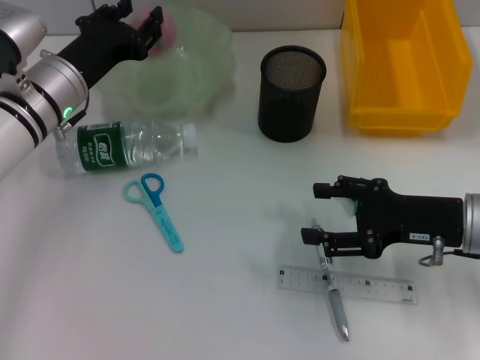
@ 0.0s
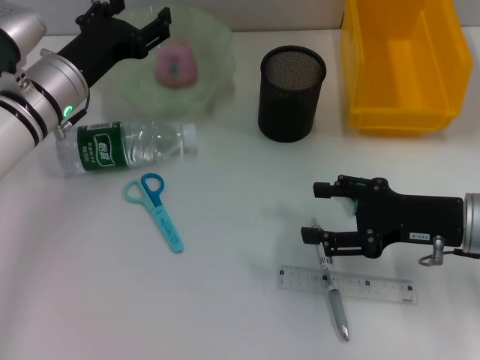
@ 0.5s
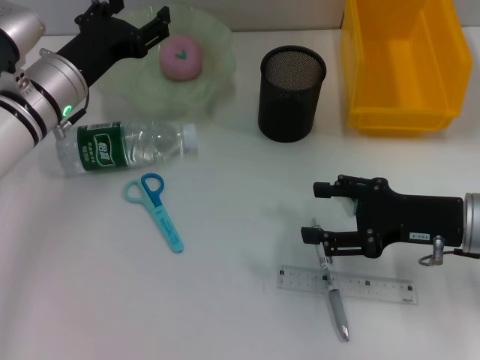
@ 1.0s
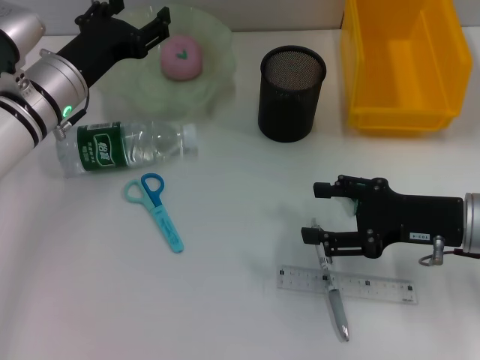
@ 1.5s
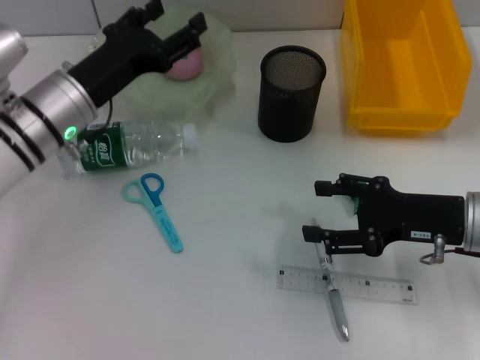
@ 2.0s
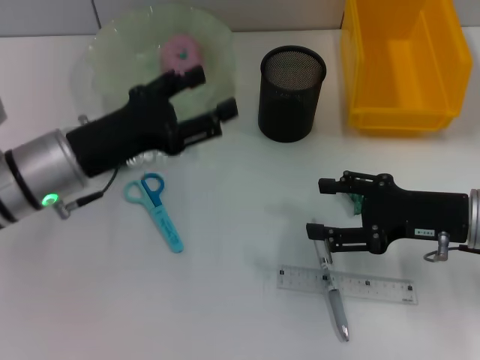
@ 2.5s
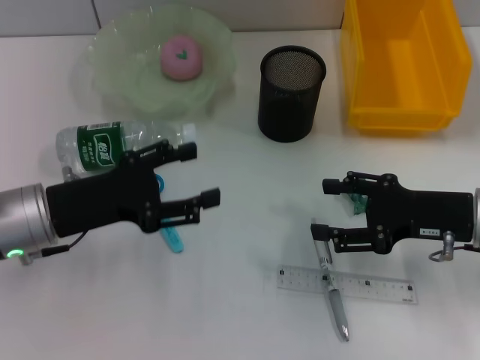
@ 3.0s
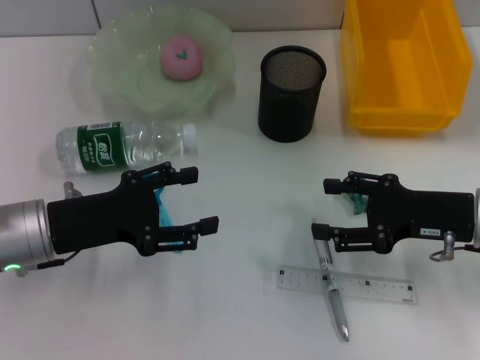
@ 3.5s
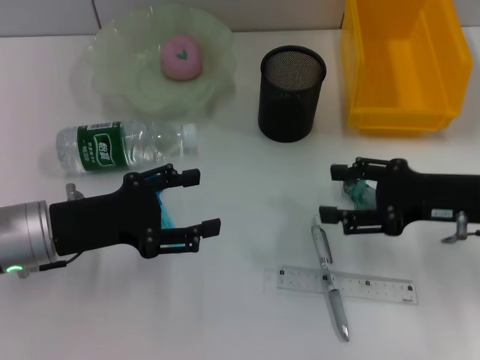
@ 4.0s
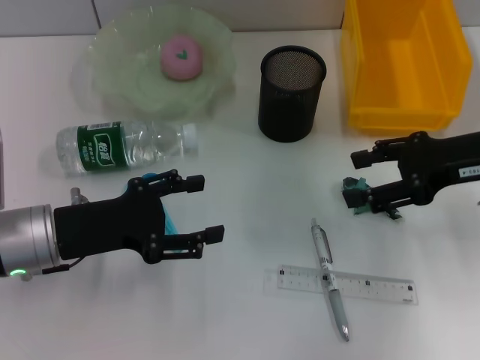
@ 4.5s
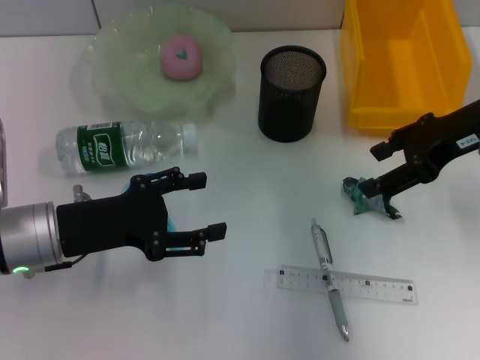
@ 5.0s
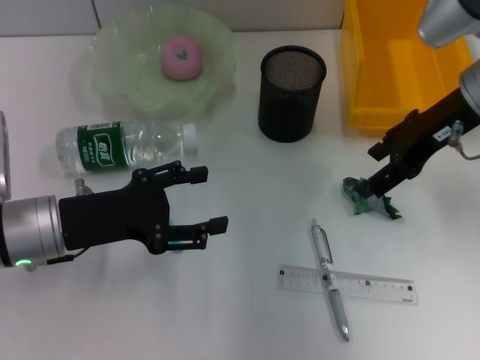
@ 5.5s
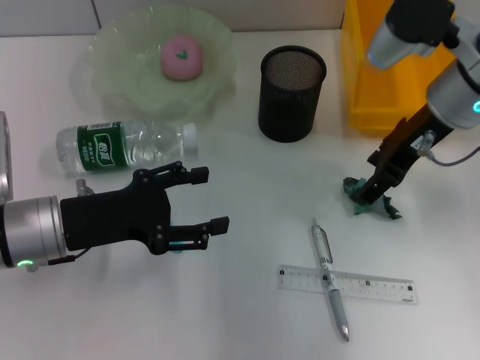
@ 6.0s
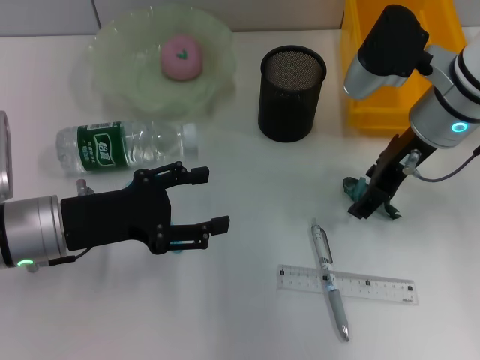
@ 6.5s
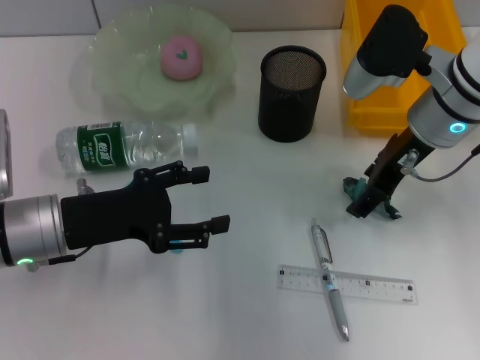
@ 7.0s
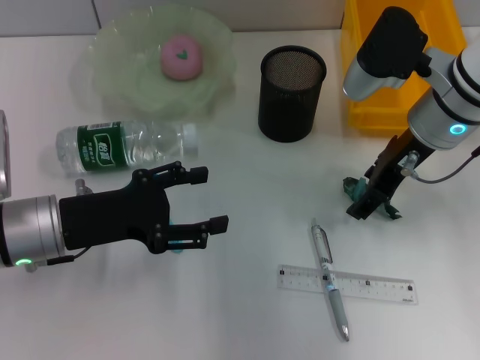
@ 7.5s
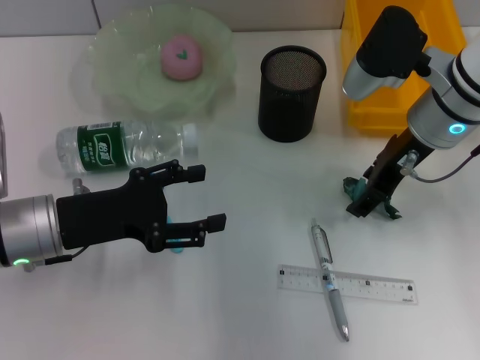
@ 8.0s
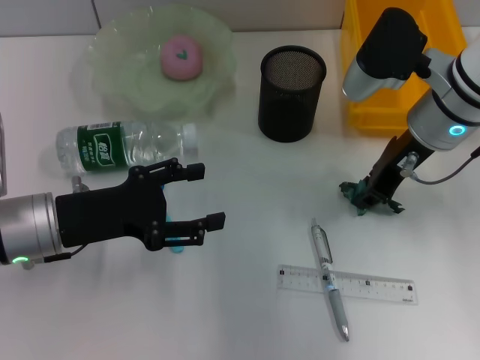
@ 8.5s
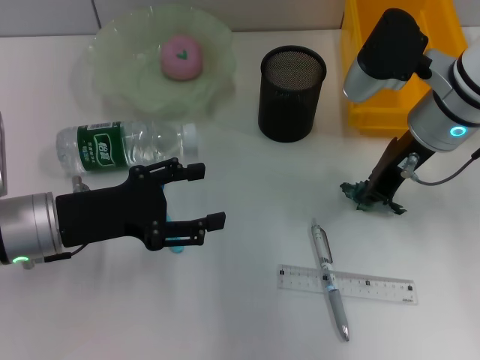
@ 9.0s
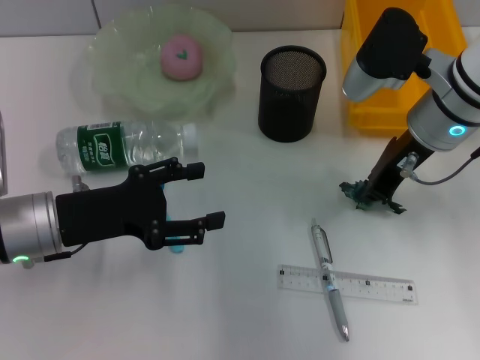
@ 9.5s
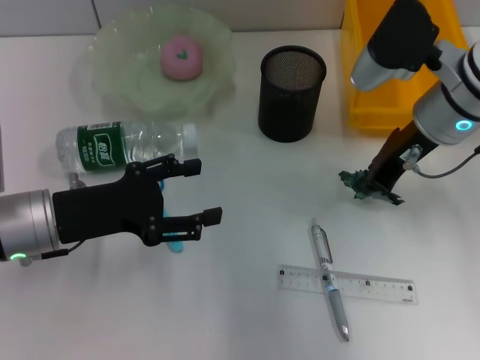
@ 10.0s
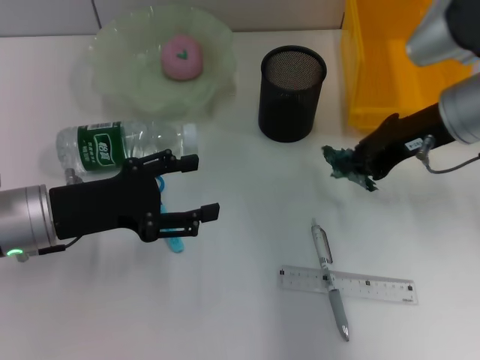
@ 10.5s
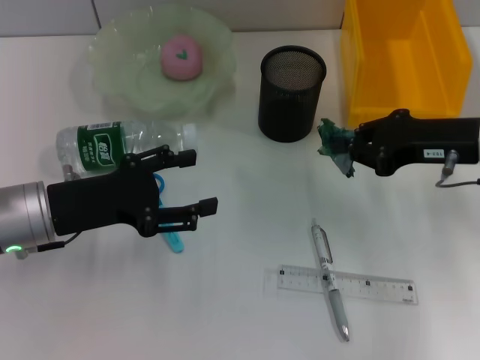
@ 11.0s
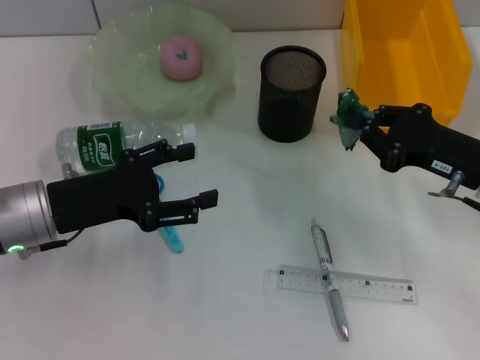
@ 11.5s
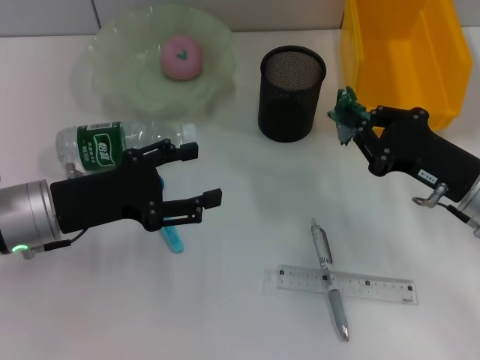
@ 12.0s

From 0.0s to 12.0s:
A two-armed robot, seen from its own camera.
Step, from 1.0s to 9.0s: Grab the plastic with the right hand.
From 0.0s to 2.0s: The left gripper opens.
From 2.0s to 4.0s: The left gripper goes about 10 cm backward.
From 4.0s to 6.0s: The right gripper shifts some 15 cm forward, upward and to the left.
From 6.0s to 8.0s: The grippers stay close to where they were, moving slightly.
From 8.0s to 10.0s: The right gripper closes.
From 10.0s to 12.0s: The right gripper is displaced downward, backward and to the right by roughly 15 cm.

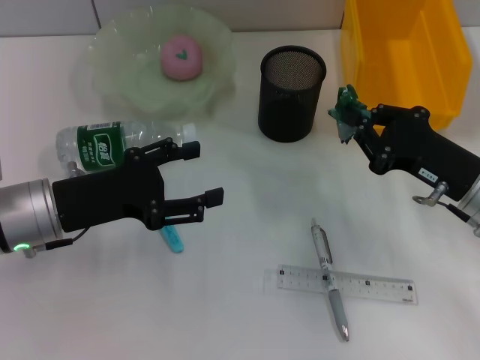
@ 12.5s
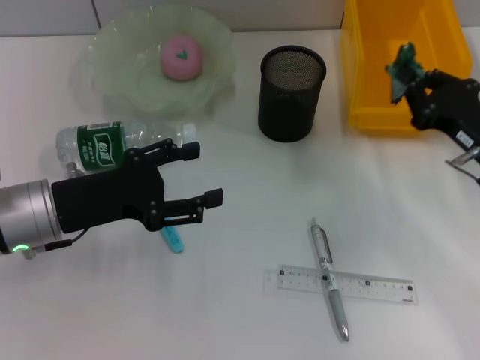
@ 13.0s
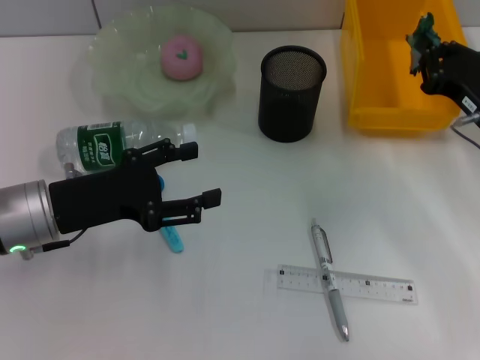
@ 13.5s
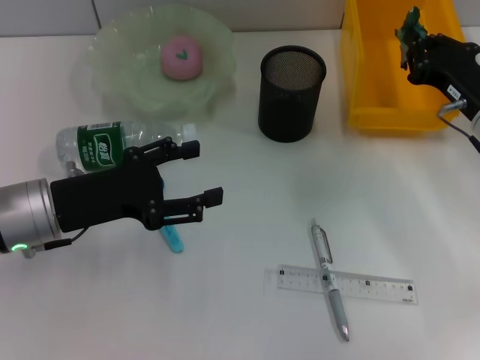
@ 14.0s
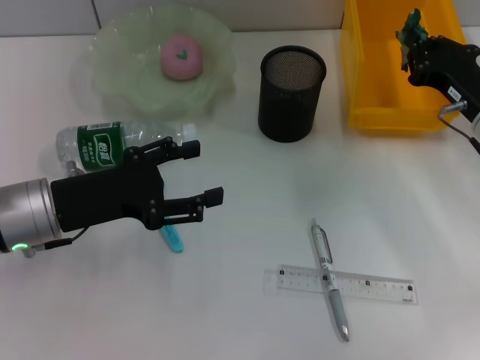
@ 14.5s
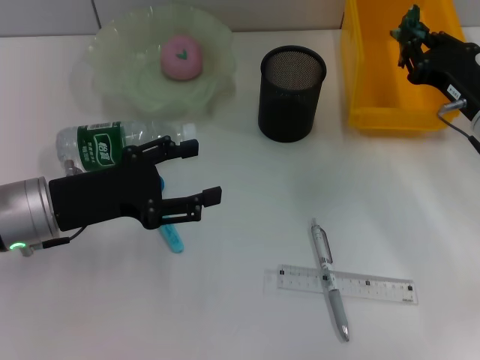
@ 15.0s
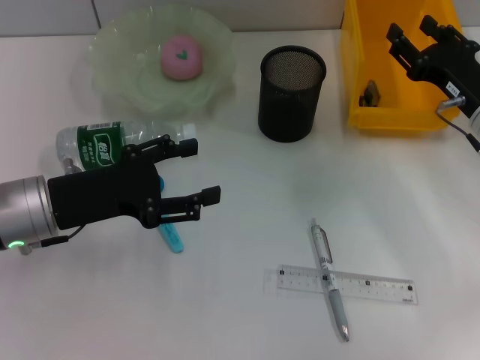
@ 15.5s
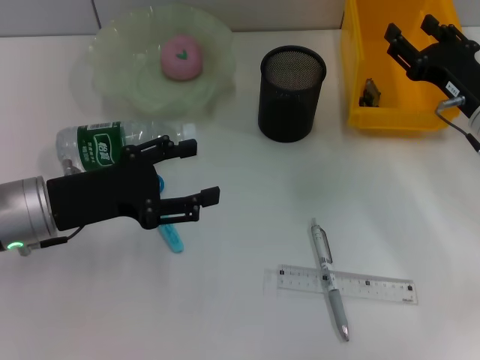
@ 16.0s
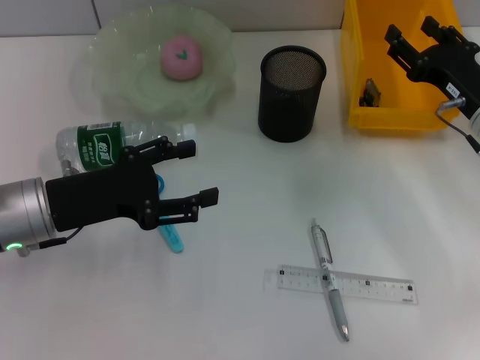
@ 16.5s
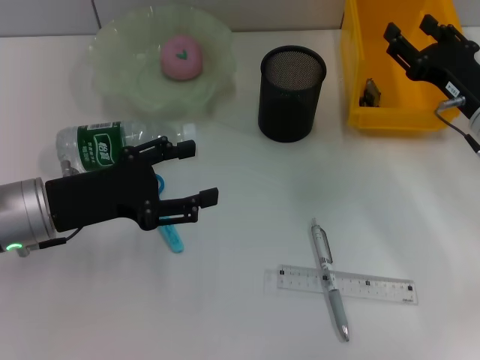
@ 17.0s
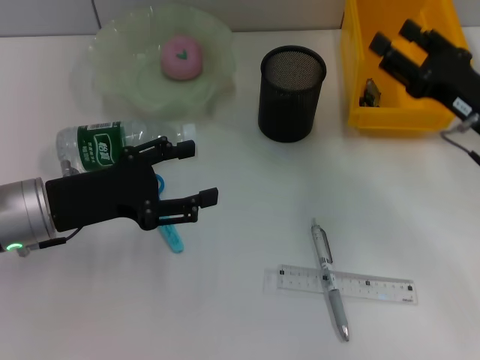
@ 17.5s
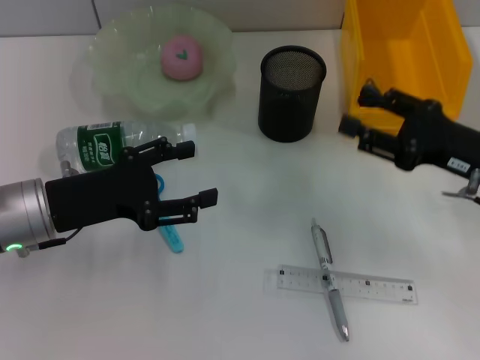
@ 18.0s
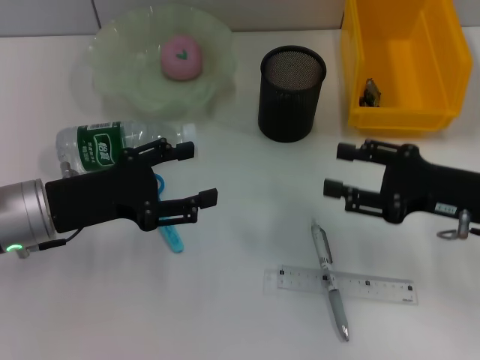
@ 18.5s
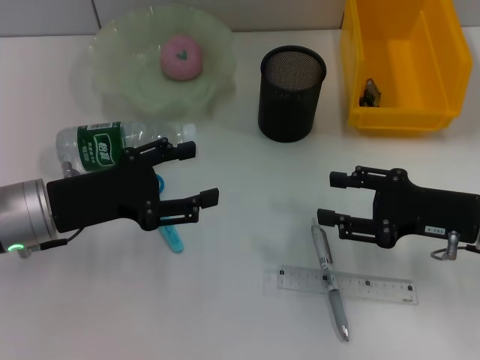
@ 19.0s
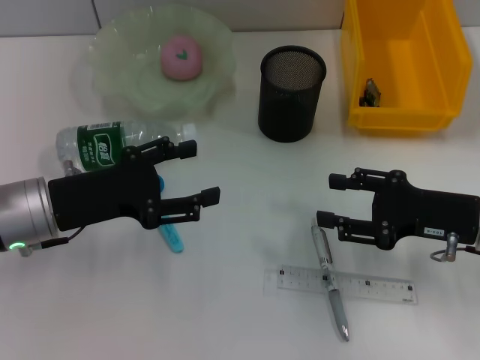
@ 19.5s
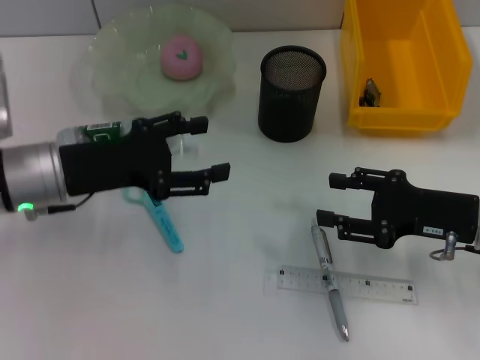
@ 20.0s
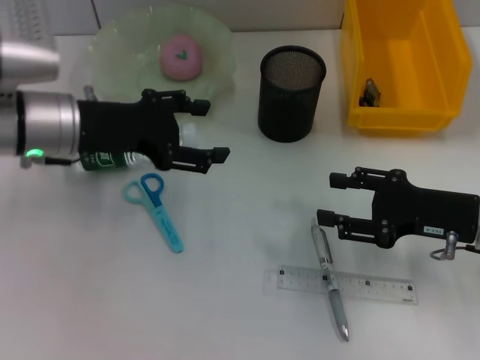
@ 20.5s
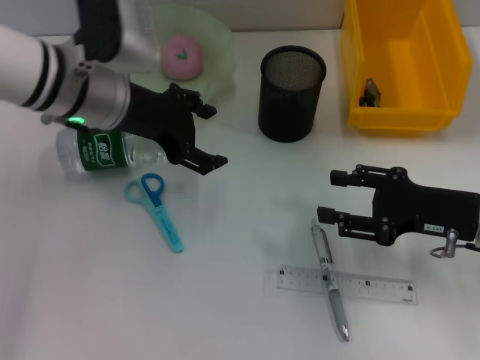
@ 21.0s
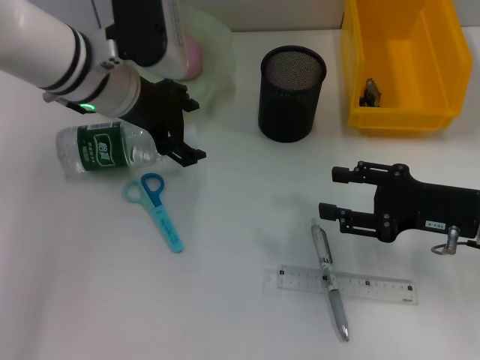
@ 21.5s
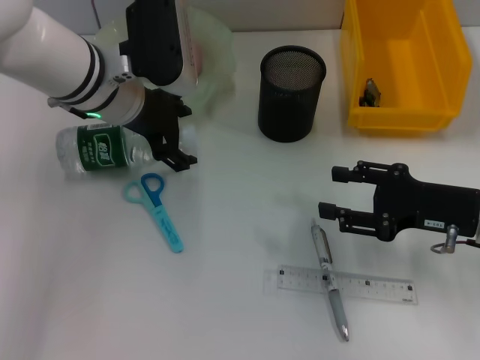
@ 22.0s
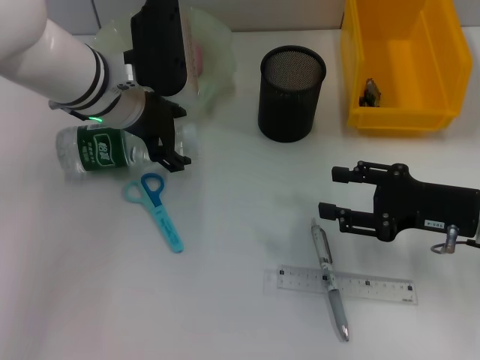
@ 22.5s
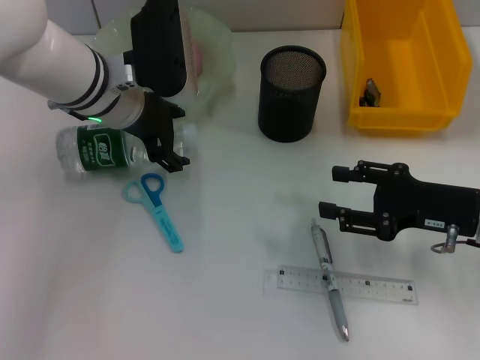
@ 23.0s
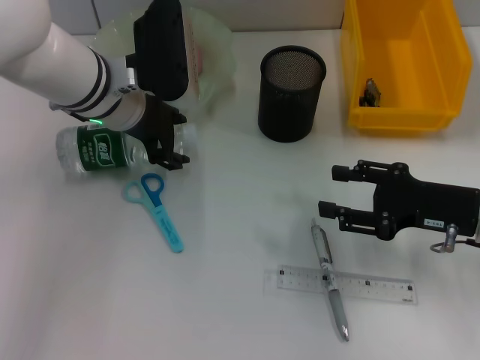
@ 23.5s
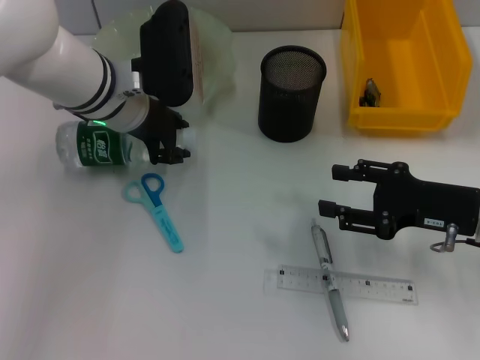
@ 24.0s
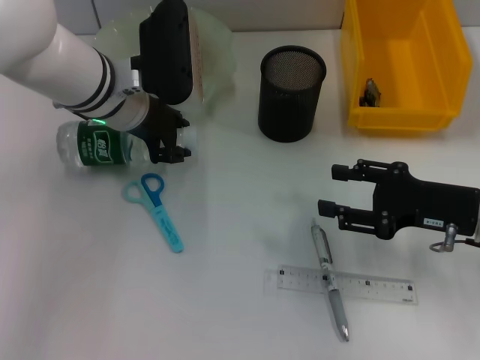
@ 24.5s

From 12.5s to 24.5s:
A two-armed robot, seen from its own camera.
Step, from 12.5s to 15.5s: Place the plastic into the trash can with the right hand.
Step, from 16.0s to 24.0s: Grab the water bottle with the left hand.
From 12.5s to 14.5s: The right gripper travels forward by approximately 5 cm.
From 14.5s to 16.5s: The right gripper opens.
From 16.5s to 18.5s: The right gripper is displaced backward by roughly 5 cm.
From 18.5s to 20.5s: The left gripper goes roughly 10 cm forward and upward.
From 20.5s to 22.5s: The left gripper is displaced to the right by about 5 cm.
From 22.5s to 24.5s: The left gripper closes up.

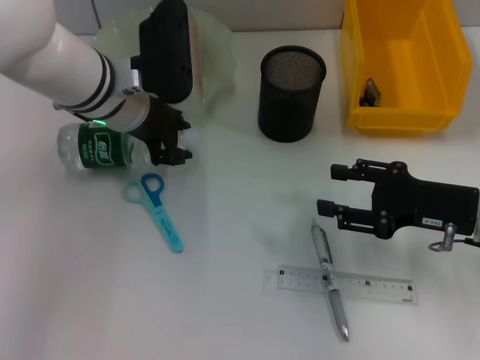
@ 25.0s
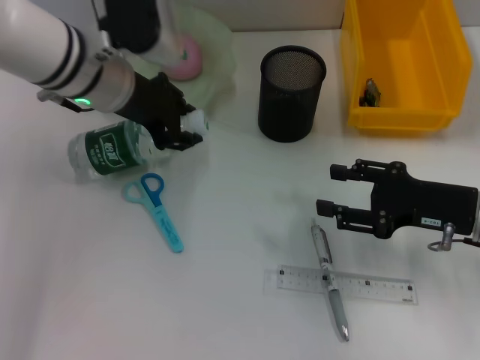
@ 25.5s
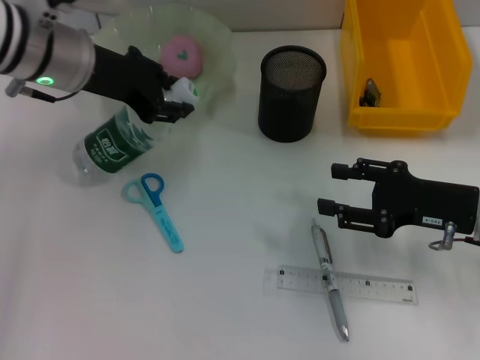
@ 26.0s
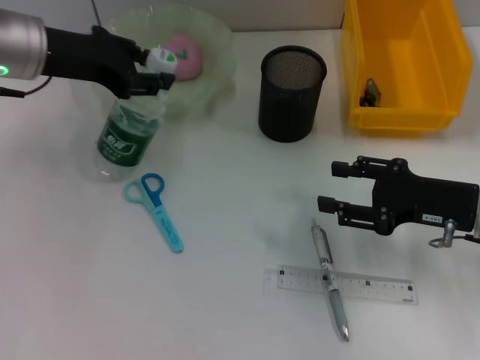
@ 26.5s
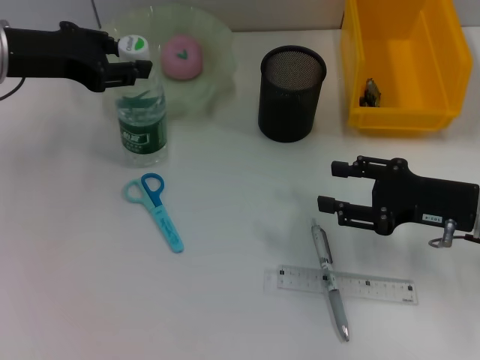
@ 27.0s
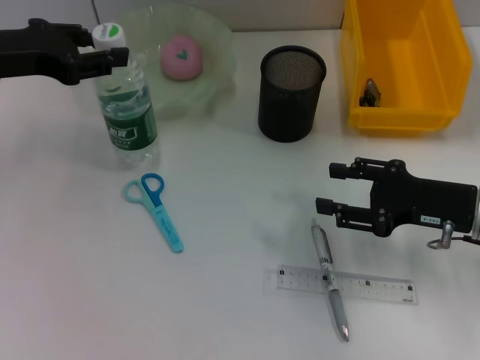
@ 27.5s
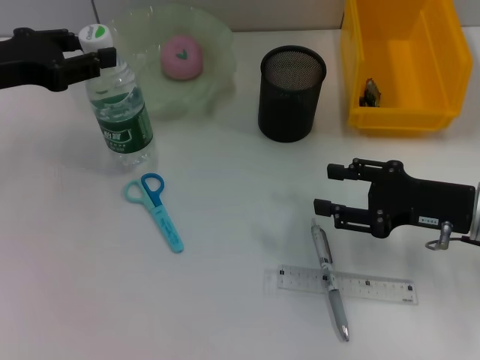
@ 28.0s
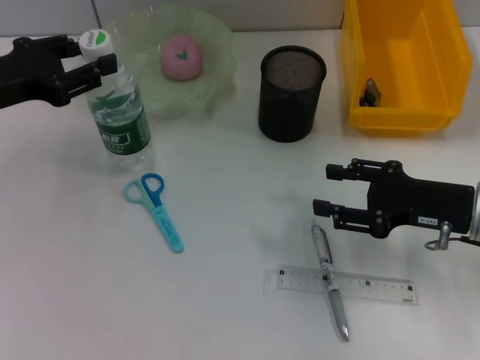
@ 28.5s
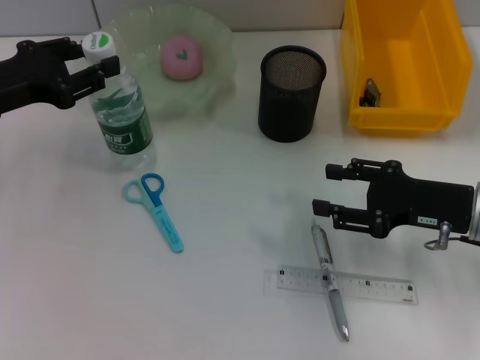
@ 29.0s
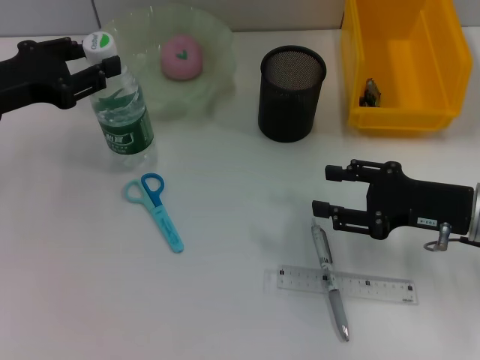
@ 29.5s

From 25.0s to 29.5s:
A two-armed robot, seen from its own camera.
From 25.0s to 27.0s: The left gripper travels to the left and upward by approximately 15 cm.
From 27.0s to 29.5s: The left gripper ends up some 5 cm from where it was.
